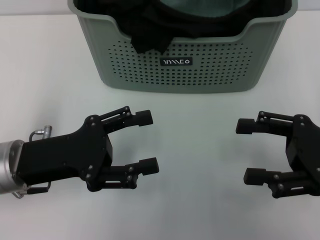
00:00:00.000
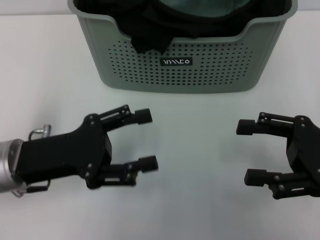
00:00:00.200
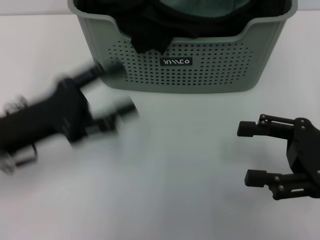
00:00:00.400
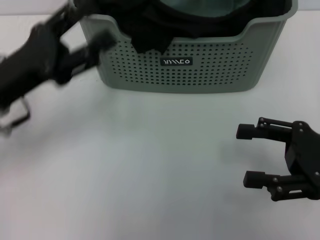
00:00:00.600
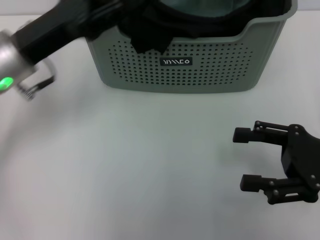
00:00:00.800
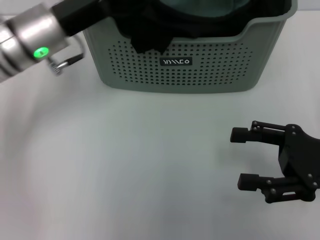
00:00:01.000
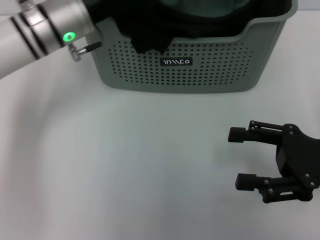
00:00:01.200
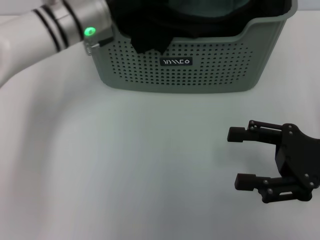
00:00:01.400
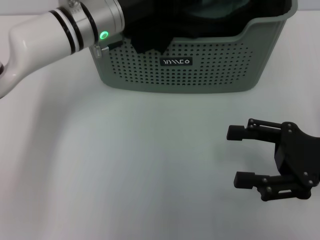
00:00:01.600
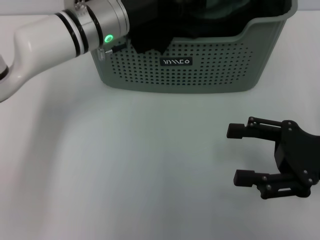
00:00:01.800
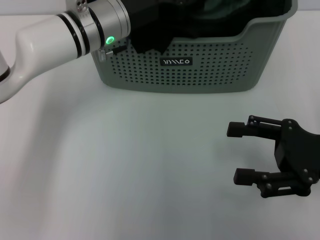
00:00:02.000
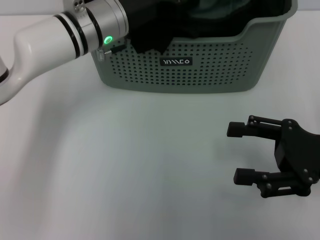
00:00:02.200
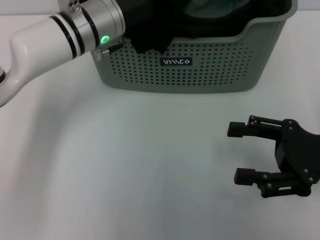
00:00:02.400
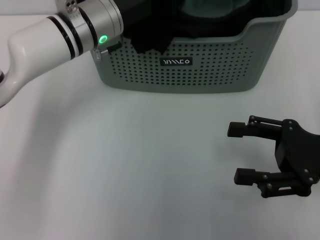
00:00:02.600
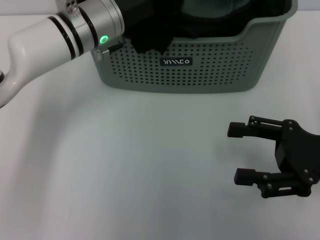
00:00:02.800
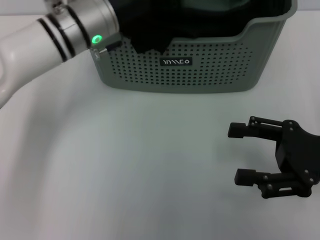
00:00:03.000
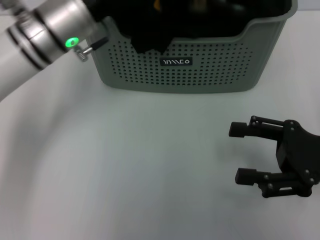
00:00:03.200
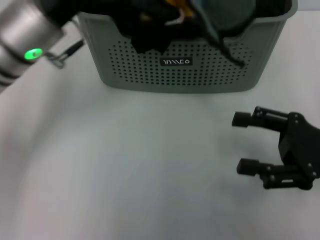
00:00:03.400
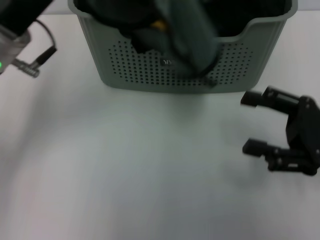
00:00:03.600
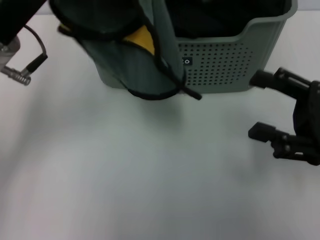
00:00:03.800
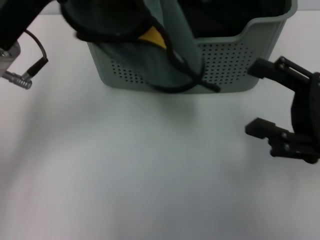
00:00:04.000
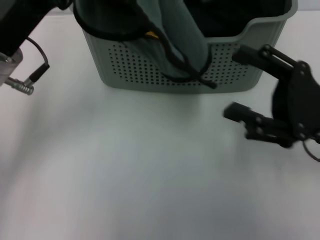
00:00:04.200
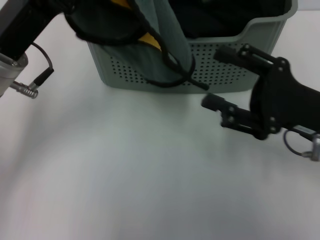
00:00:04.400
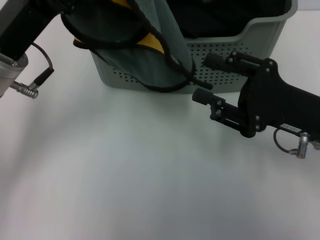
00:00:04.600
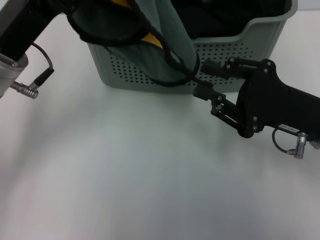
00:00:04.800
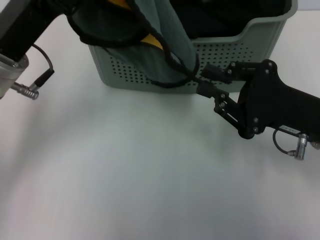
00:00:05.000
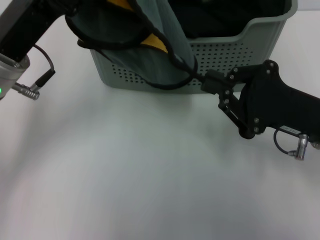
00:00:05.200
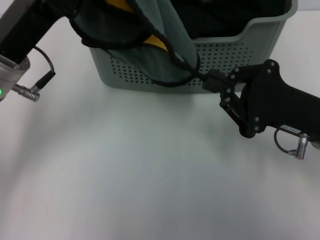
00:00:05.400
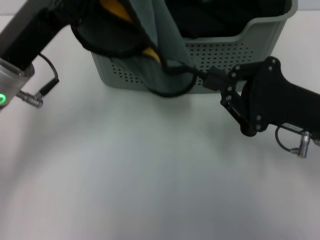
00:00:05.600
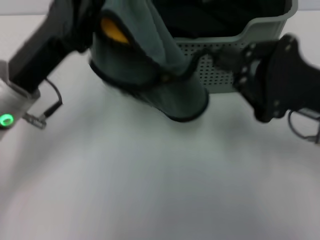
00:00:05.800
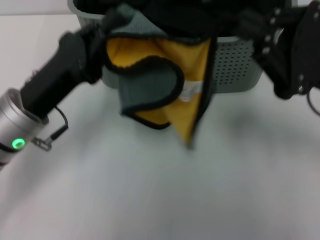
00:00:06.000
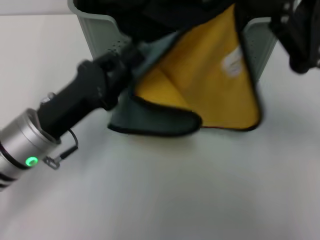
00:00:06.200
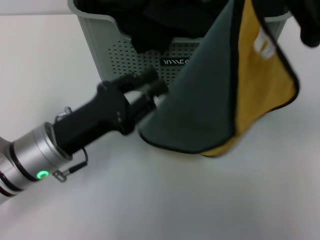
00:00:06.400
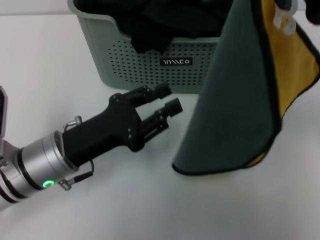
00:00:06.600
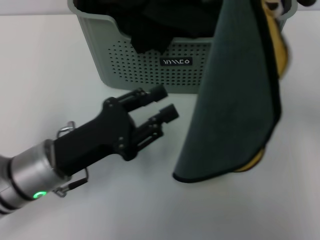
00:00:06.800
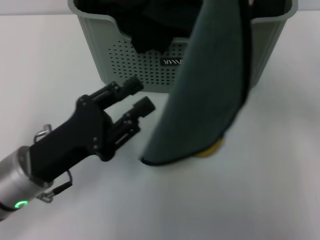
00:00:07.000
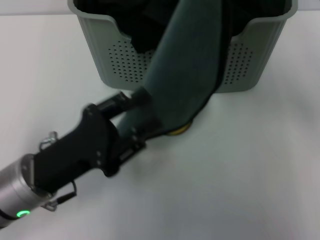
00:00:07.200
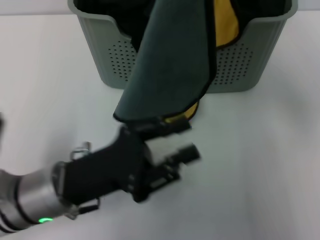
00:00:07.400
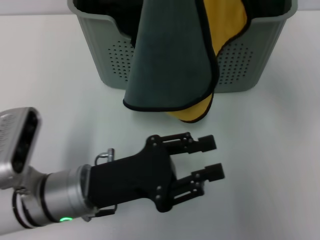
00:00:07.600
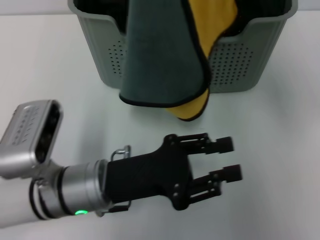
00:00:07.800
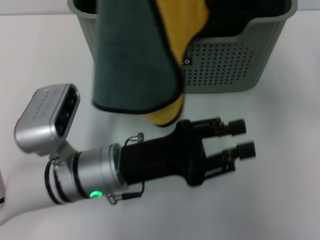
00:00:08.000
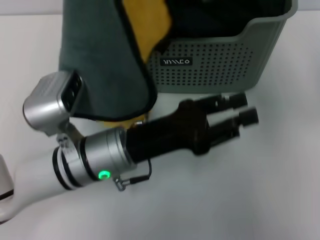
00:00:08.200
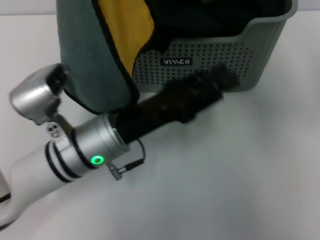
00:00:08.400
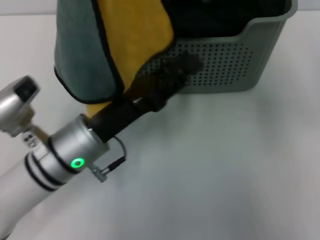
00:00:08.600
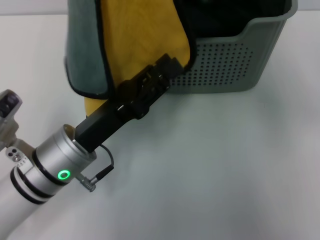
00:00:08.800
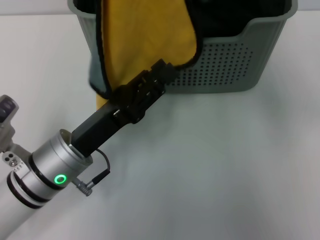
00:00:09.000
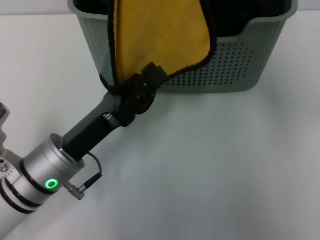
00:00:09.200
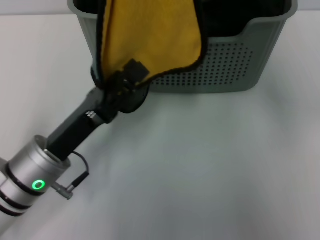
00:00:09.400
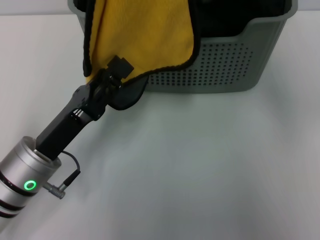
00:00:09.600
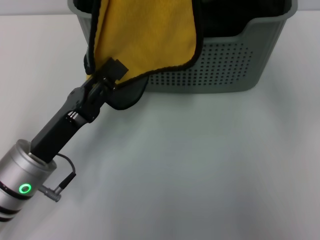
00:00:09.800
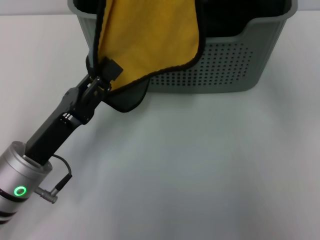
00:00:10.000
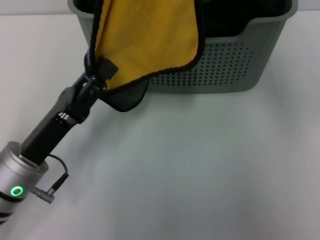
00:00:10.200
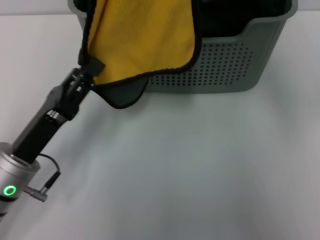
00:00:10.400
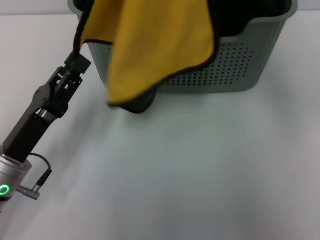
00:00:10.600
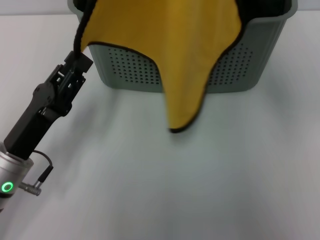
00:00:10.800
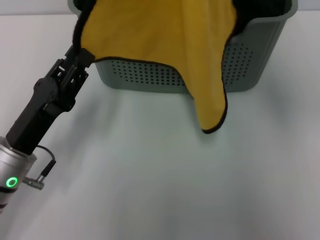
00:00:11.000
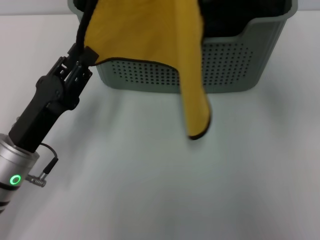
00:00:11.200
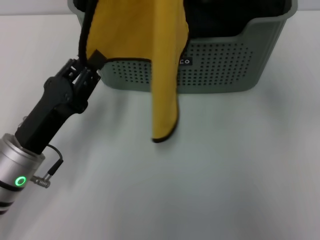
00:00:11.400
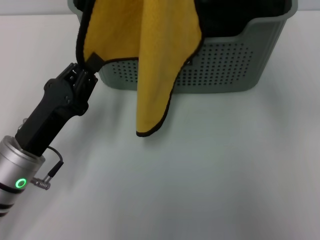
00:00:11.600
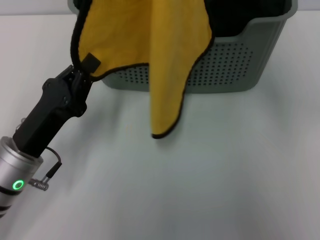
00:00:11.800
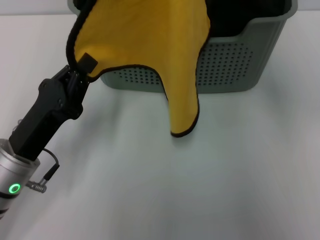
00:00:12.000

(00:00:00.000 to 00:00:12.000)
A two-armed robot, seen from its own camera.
Task of the whole recording: pick up the towel from the storage box and lay it flat on the table.
Step, 00:00:00.000 - 00:00:02.800: Pick up a towel with the left gripper.
Step, 00:00:03.200 - 00:00:05.200: Spread the towel flat with the left gripper.
00:00:00.000 - 00:00:01.600: The left gripper goes roughly 20 cm forward and to the right.
00:00:01.600 - 00:00:03.000: The left gripper closes.
00:00:03.000 - 00:00:04.400: The left gripper is displaced backward and to the left by about 10 cm.
00:00:04.400 - 00:00:06.000: The right gripper goes about 5 cm upward, and closes; the left gripper heads downward, covering approximately 5 cm.
00:00:06.000 - 00:00:07.600: The left gripper heads to the right and backward, covering about 10 cm, and opens its fingers, while the right gripper shifts about 15 cm upward and forward.
00:00:09.000 - 00:00:10.400: The left gripper goes approximately 5 cm to the left.
00:00:10.400 - 00:00:12.000: The left gripper closes.

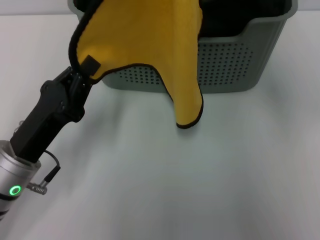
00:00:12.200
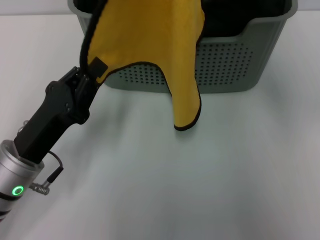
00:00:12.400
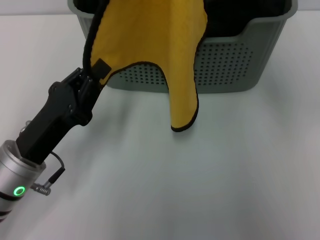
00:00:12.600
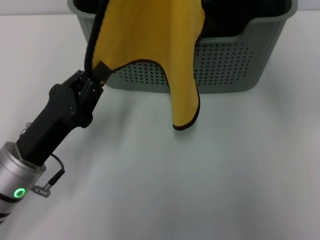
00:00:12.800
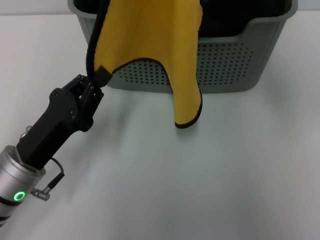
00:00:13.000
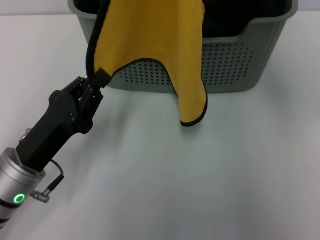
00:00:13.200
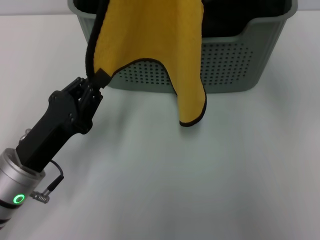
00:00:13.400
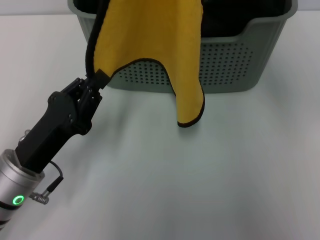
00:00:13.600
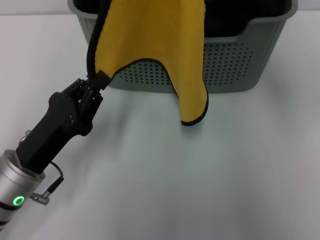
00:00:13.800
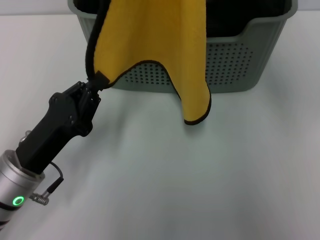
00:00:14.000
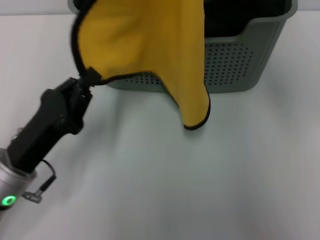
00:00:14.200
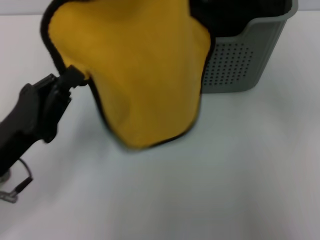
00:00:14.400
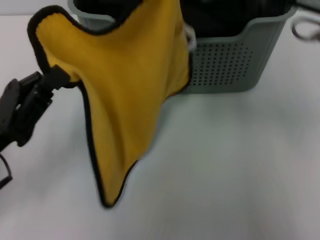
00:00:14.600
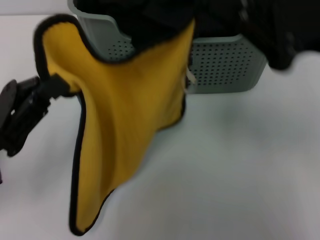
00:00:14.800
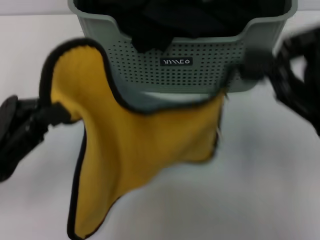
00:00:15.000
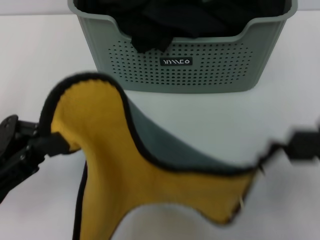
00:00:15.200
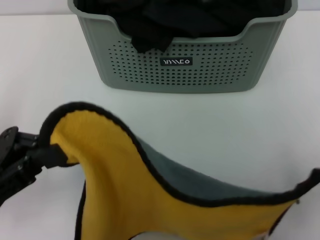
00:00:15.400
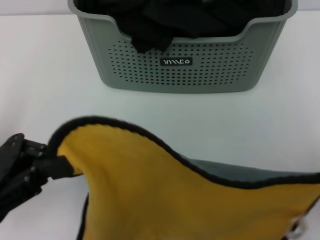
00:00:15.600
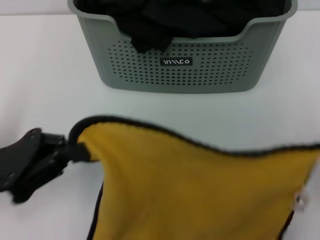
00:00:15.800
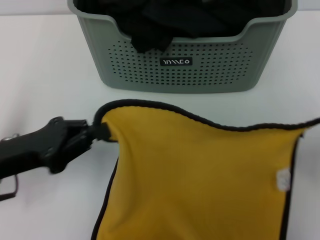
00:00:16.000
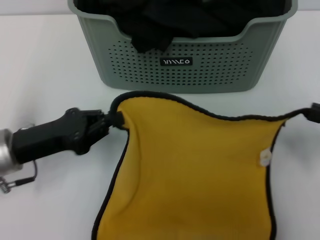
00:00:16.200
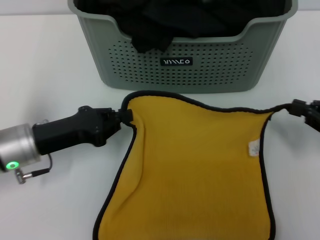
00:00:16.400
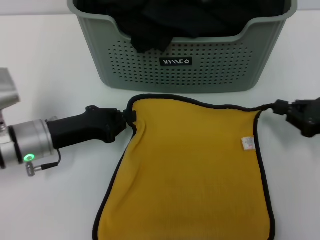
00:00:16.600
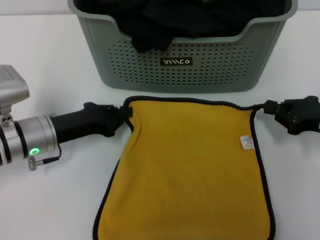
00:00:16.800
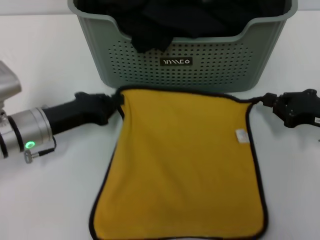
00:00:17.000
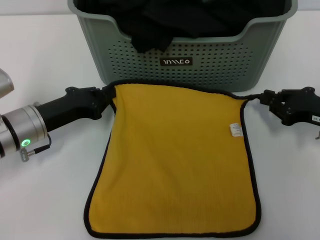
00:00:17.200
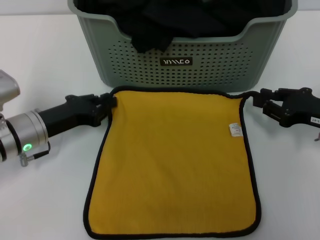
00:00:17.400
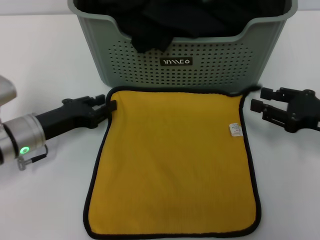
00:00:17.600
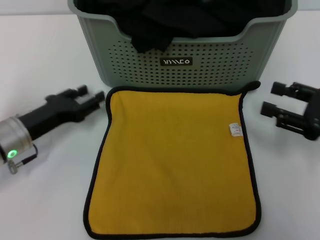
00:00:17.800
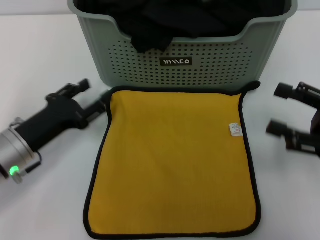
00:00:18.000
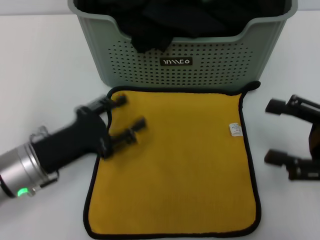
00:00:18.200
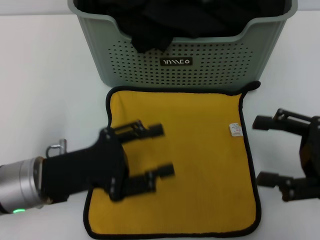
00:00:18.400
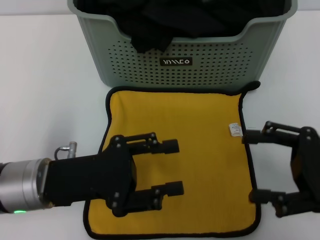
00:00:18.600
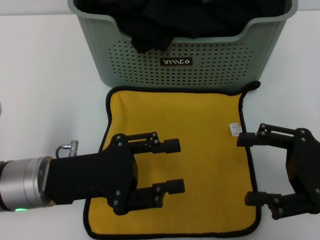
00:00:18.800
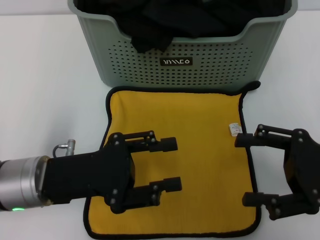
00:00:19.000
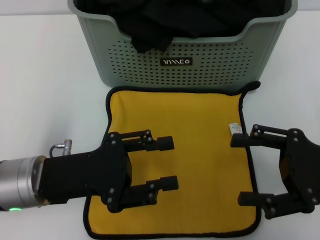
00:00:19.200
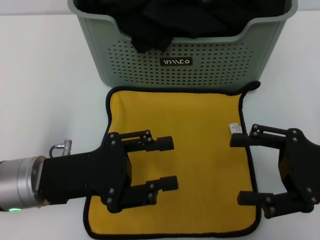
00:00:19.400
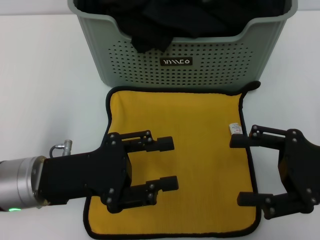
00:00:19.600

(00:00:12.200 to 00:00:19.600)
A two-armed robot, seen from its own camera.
Task of the whole recording: pick up the towel from the storage box and lay it flat on the table.
Step, 00:00:12.200 - 00:00:17.600: Spread the towel flat with the right gripper.
00:00:12.200 - 00:00:13.600: The two grippers keep their place.
00:00:13.600 - 00:00:15.200: The left gripper travels upward and to the left by roughly 10 cm. Meanwhile the right gripper heads backward, to the right and downward, covering roughly 20 cm.
00:00:15.200 - 00:00:16.600: The left gripper travels forward, downward and to the right by about 15 cm. Meanwhile the right gripper heads downward and forward, covering about 20 cm.
00:00:16.600 - 00:00:18.200: Both grippers travel together backward, about 5 cm. The left gripper opens; the right gripper opens.
